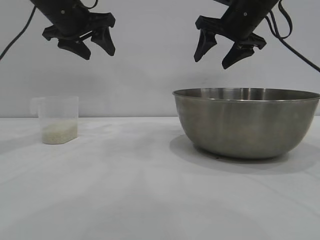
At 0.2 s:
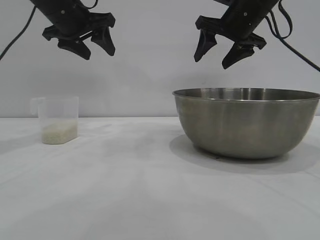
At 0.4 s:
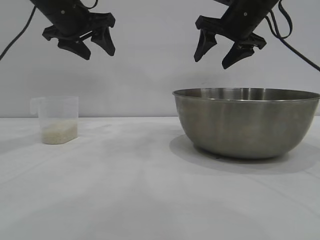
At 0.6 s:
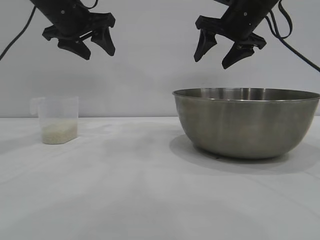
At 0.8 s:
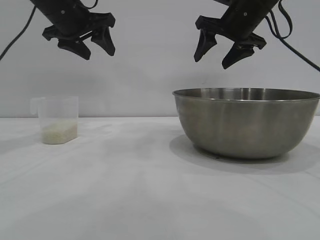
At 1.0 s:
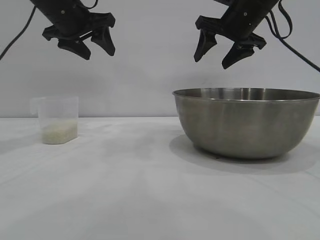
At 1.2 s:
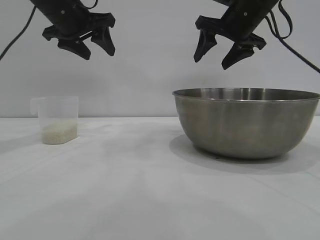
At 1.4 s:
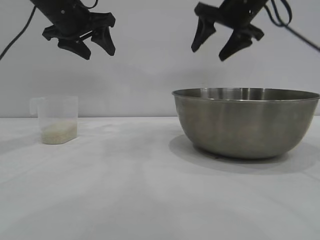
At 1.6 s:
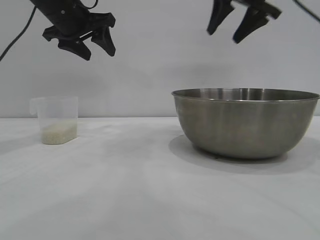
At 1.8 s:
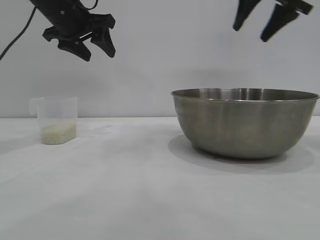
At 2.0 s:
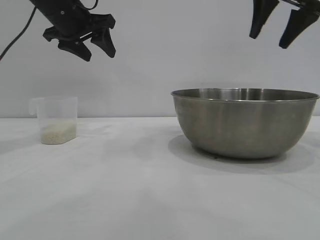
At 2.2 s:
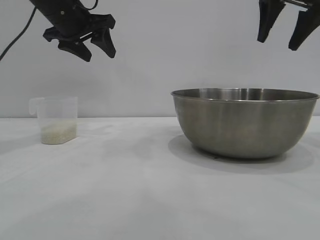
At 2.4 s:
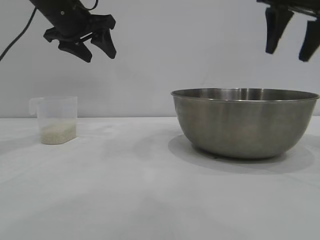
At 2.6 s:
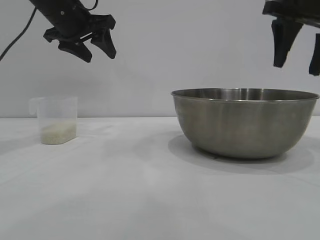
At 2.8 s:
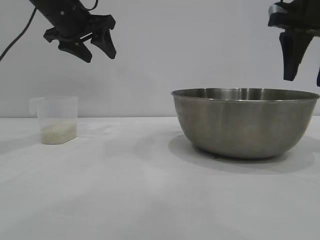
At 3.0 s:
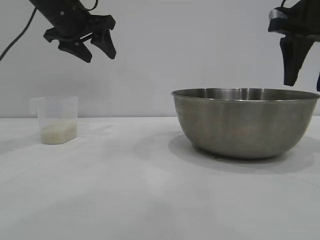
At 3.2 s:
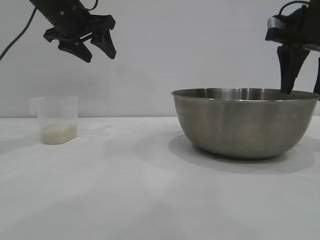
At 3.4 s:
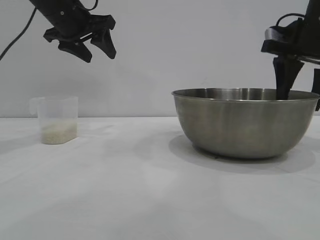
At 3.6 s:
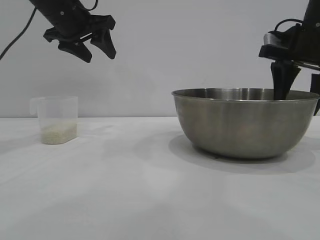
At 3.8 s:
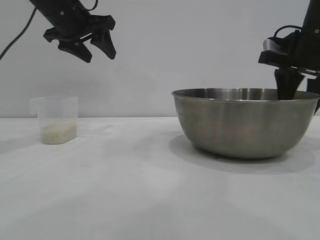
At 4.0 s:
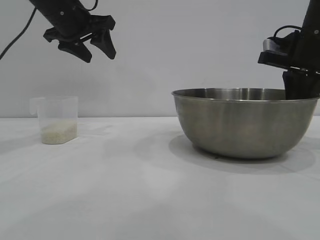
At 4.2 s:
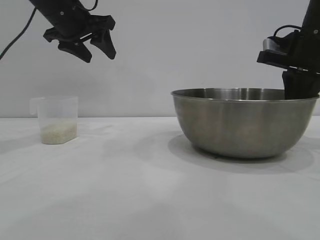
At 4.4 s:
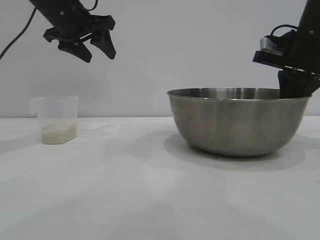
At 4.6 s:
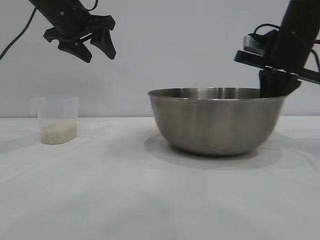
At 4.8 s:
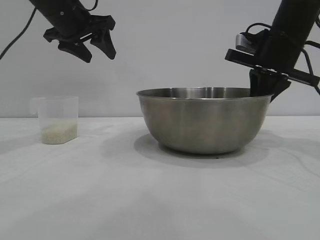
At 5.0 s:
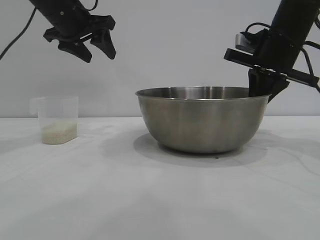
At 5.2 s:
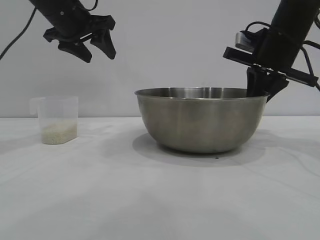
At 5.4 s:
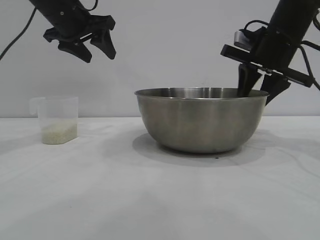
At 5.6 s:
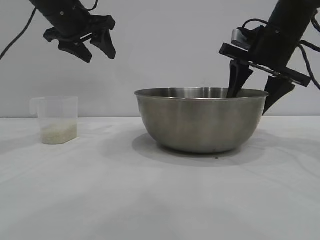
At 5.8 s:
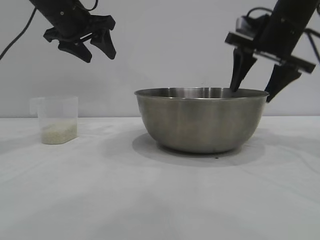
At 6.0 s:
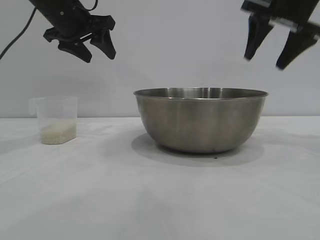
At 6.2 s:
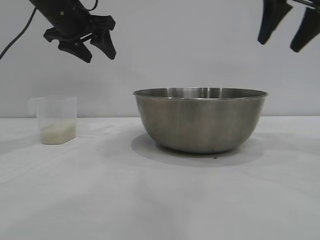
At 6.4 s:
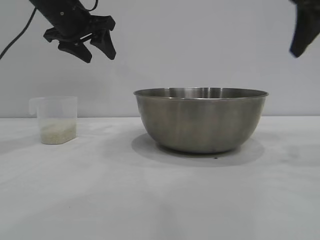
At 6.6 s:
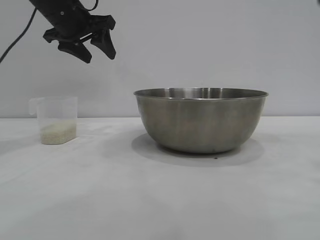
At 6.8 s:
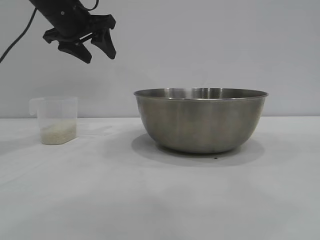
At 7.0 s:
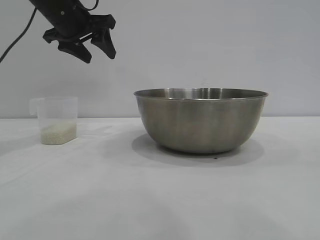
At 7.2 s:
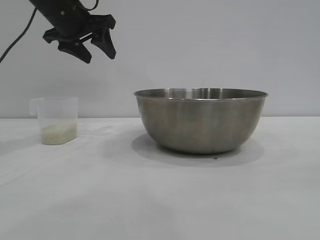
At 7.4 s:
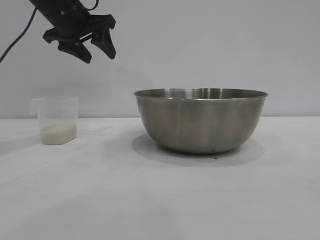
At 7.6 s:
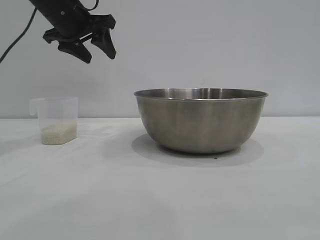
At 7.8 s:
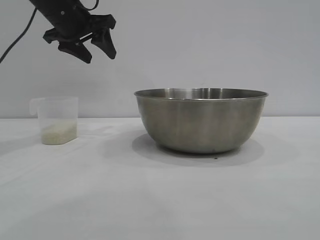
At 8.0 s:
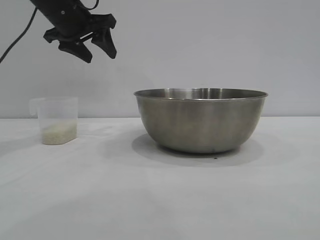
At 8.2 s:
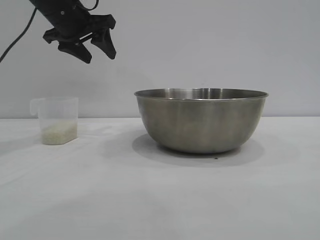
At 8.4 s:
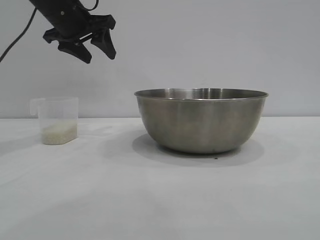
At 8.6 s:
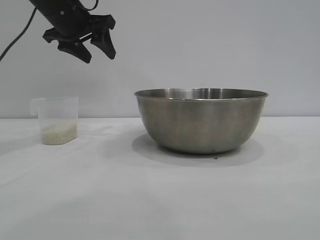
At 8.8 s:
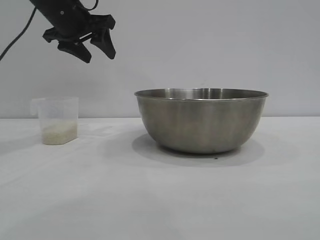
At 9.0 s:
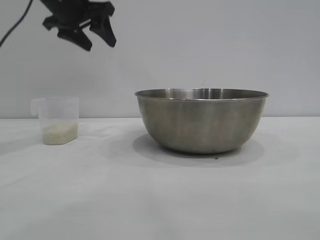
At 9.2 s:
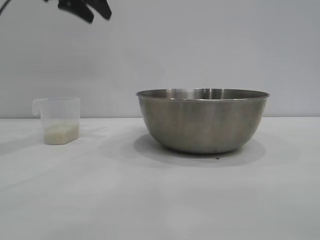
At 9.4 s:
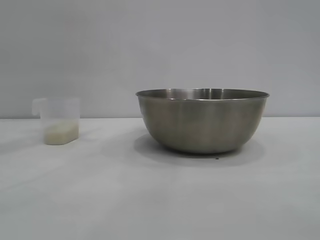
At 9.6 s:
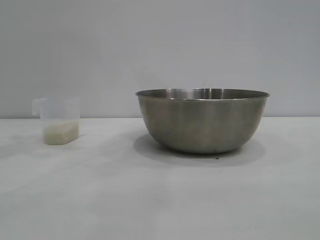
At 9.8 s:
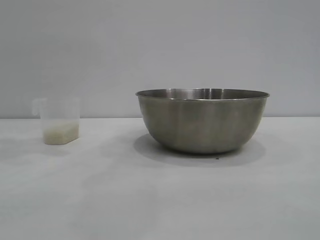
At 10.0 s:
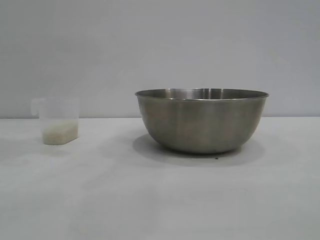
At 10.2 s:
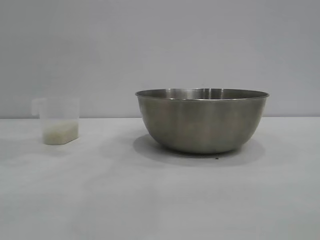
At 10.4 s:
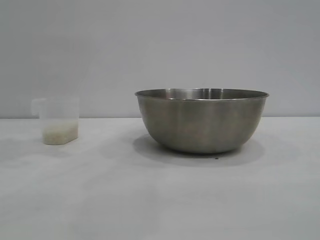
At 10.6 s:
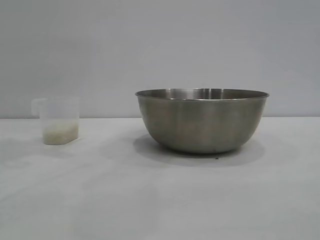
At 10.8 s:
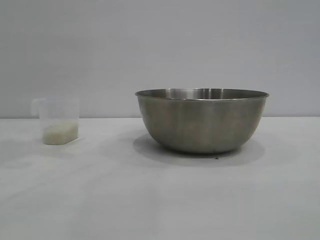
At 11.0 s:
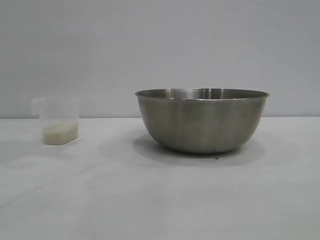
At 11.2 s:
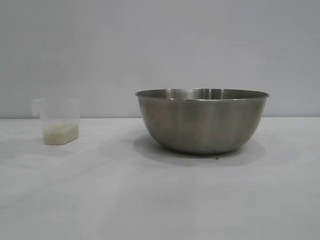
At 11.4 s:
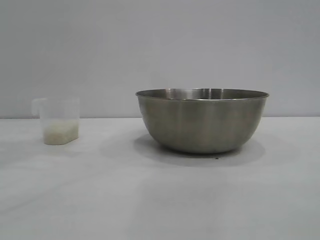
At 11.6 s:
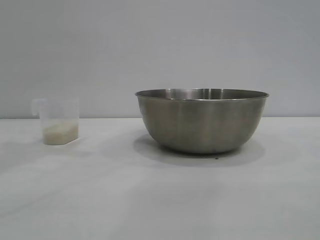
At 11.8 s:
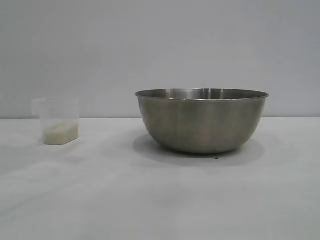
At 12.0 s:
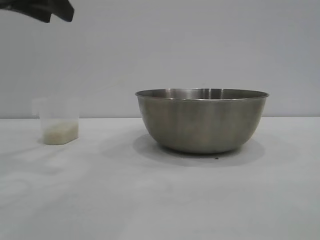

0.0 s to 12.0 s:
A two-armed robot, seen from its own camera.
Task of the whole recording: the right gripper grasp the rice container and place it in the center of the table, the left gripper grasp the rice scoop and pour the rice into the rice container.
Step, 0.0 to 6.0 s: Move the bowl to the center of view with the right gripper.

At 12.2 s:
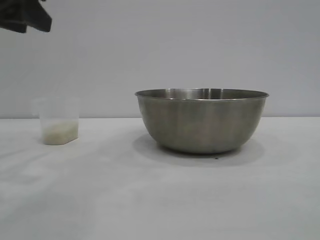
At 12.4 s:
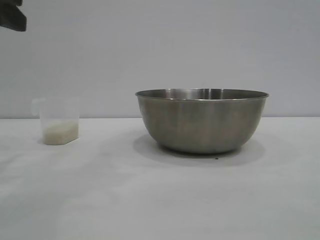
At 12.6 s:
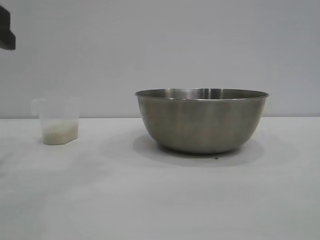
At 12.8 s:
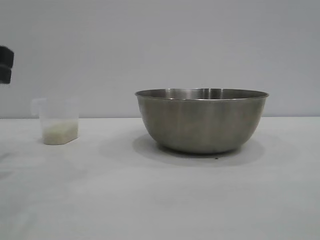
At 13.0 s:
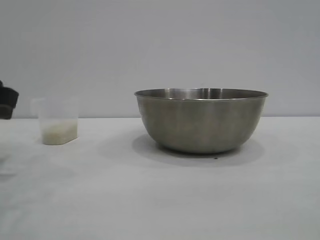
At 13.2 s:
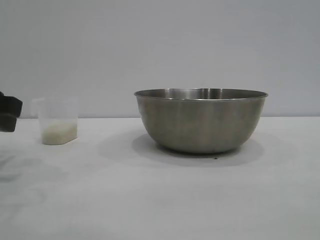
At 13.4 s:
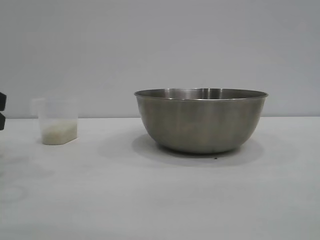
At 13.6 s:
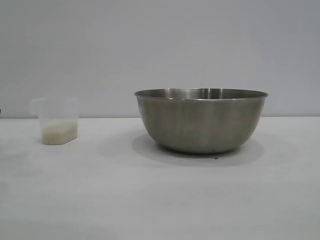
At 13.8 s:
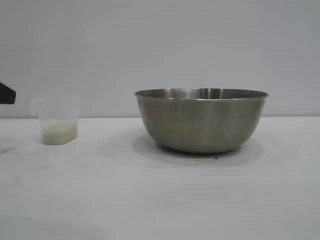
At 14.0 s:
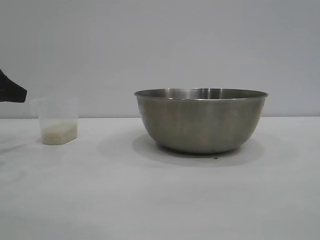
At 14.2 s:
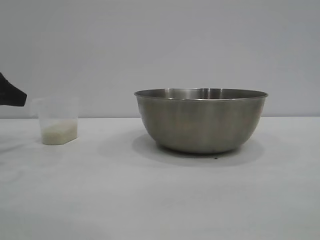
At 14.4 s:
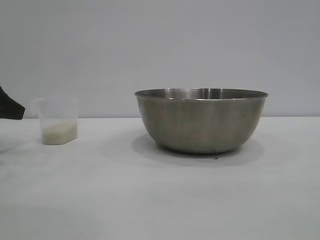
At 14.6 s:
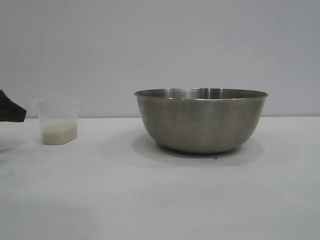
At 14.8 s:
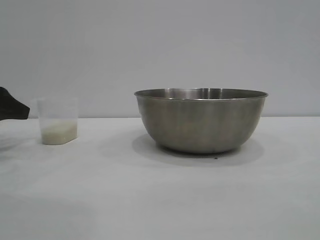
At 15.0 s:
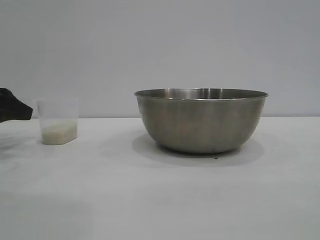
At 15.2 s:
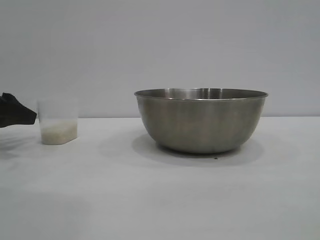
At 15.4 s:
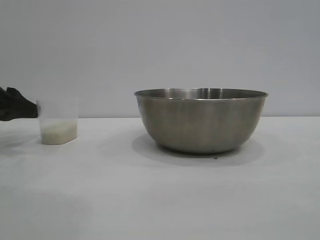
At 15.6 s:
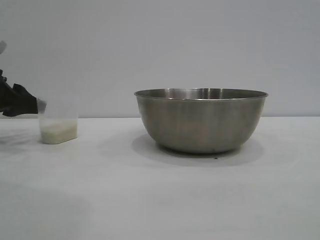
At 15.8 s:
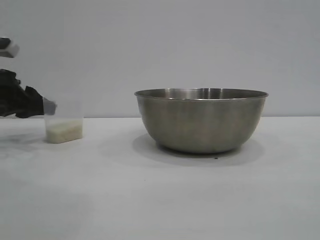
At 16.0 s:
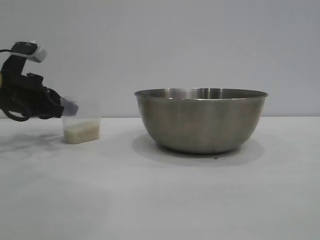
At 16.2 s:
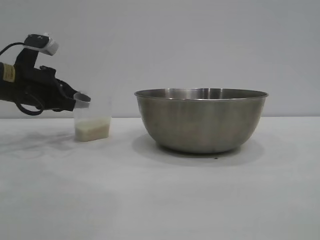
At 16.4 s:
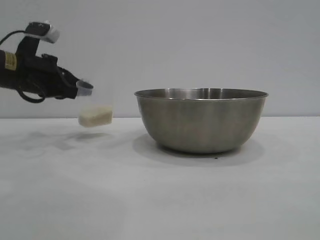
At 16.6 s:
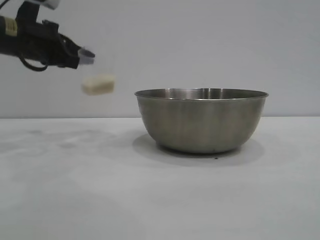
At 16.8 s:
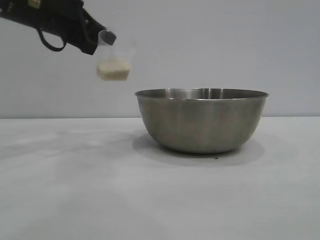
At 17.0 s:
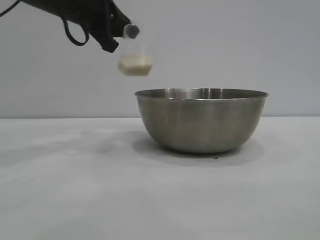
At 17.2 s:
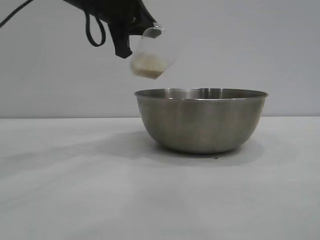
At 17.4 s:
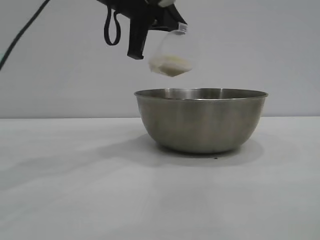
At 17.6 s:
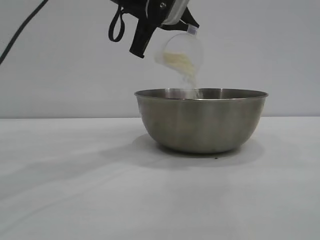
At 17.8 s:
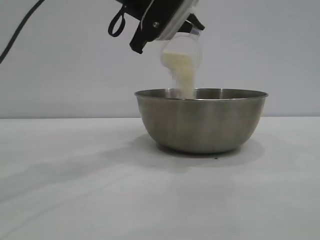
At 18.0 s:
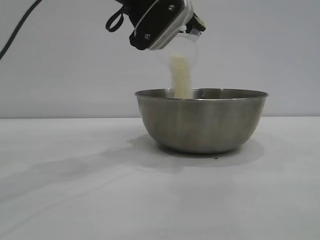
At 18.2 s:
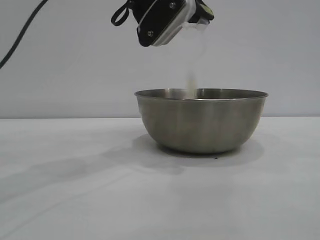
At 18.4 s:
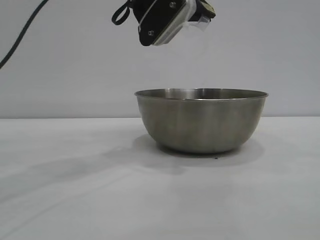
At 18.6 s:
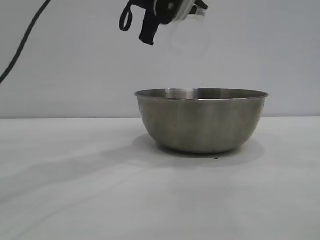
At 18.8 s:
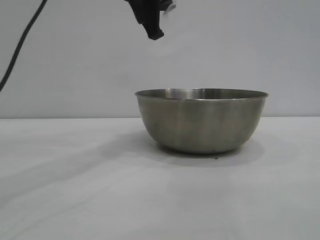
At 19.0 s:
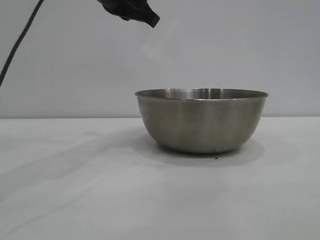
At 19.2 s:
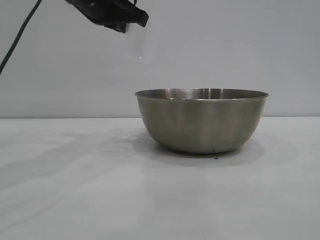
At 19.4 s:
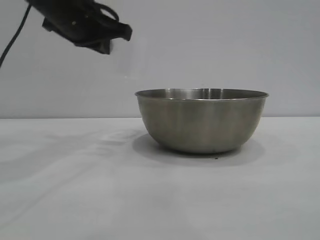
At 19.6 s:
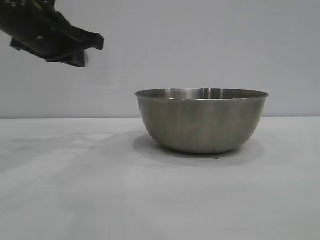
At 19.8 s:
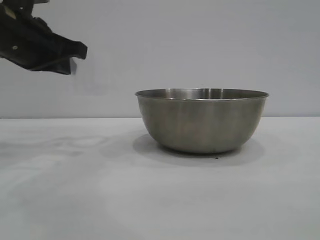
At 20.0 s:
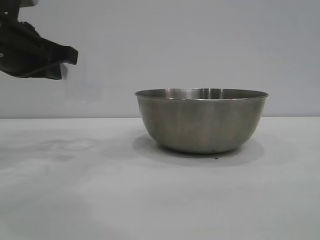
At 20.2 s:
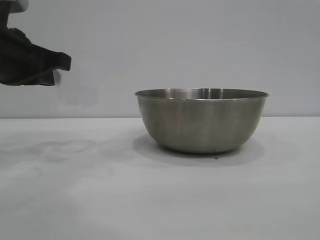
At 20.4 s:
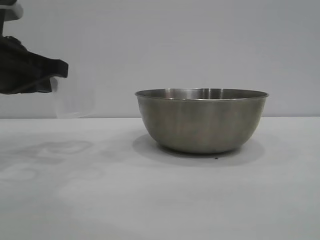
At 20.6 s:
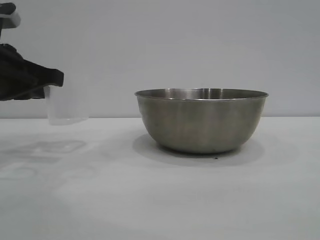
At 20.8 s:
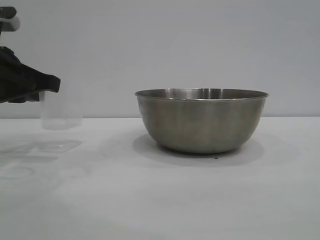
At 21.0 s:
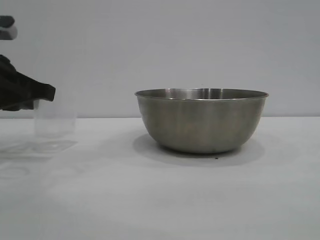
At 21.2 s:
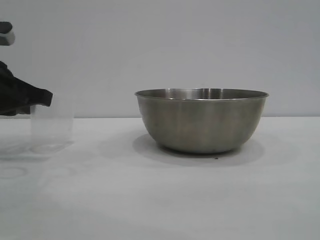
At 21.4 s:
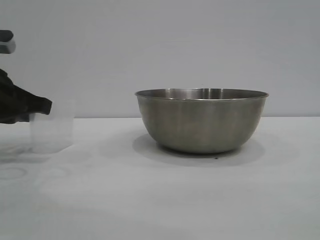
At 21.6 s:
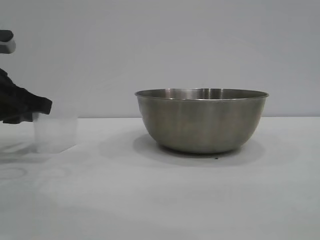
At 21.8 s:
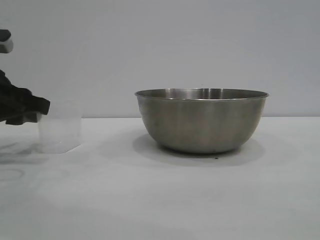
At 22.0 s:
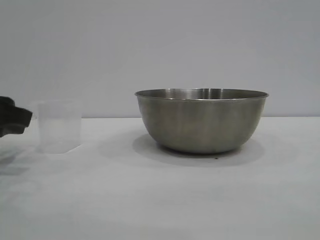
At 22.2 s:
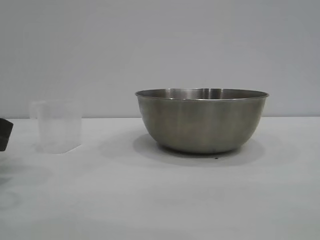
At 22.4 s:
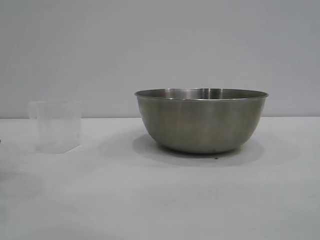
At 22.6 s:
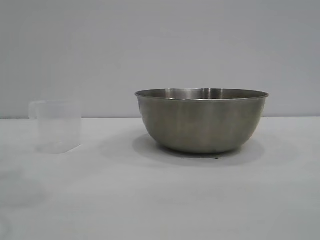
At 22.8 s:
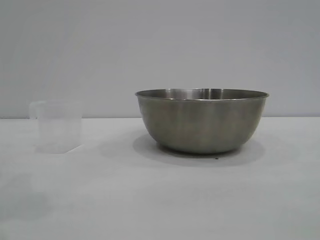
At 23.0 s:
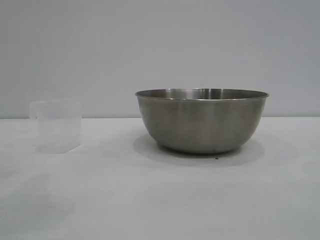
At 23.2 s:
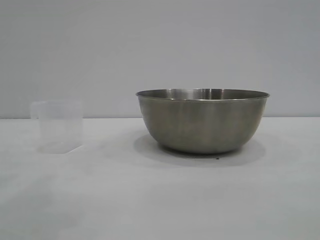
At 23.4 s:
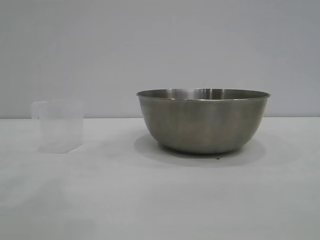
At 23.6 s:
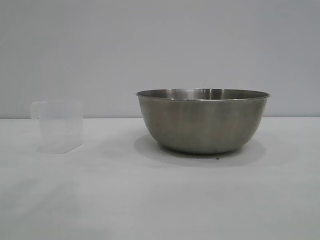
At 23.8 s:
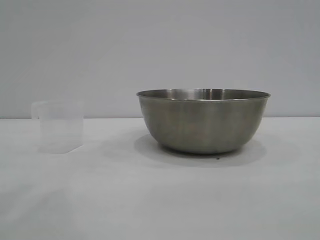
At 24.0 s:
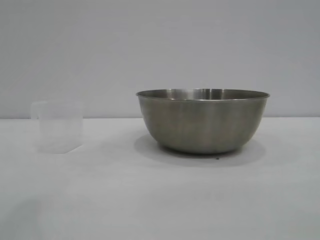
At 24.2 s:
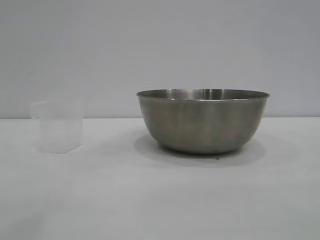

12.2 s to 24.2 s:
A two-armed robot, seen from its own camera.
Task of the whole recording: the right gripper grasp the rice container and place it in the center of the table, the left gripper grasp the rice scoop and pour the rice into the rice container.
Step, 12.2 to 16.2 s: Pick up the cup with rice in it with the left gripper.
Step, 16.6 to 18.4 s: Pour the rice from the cup into the bowl with the left gripper.
Step, 18.6 to 22.4 s: Place the cup on the table with the left gripper.
